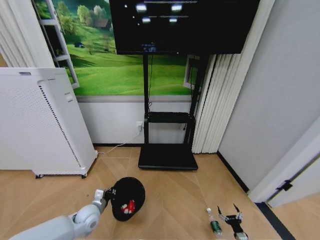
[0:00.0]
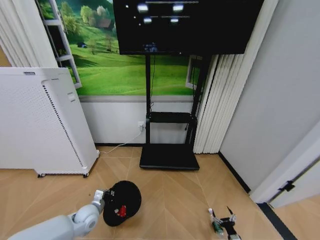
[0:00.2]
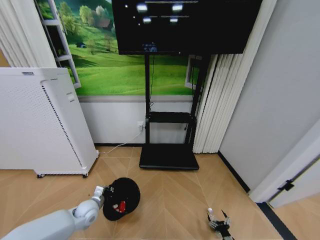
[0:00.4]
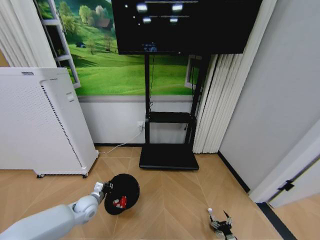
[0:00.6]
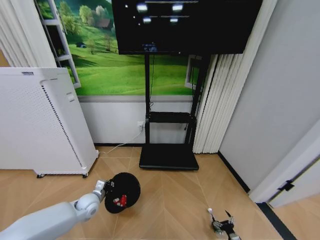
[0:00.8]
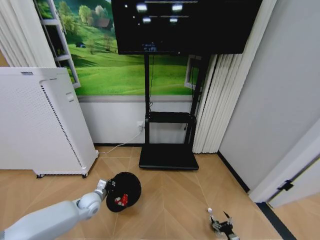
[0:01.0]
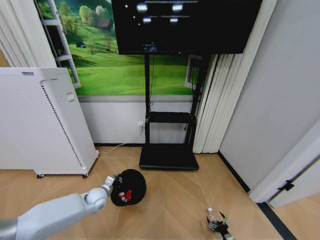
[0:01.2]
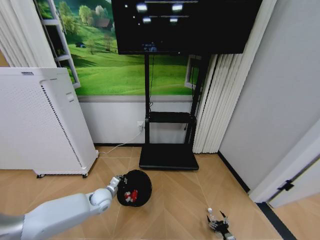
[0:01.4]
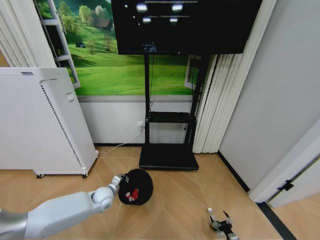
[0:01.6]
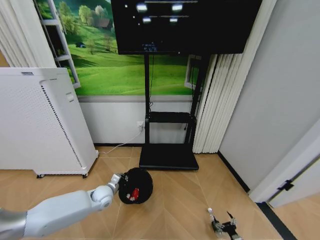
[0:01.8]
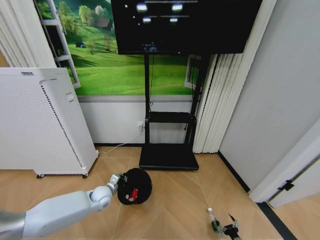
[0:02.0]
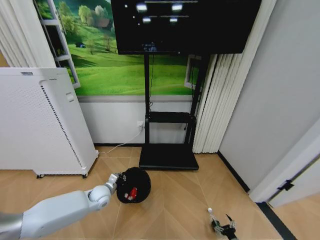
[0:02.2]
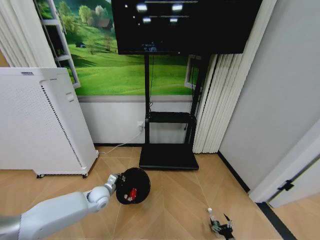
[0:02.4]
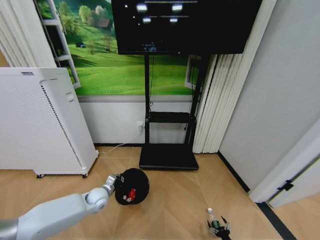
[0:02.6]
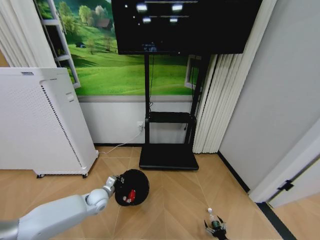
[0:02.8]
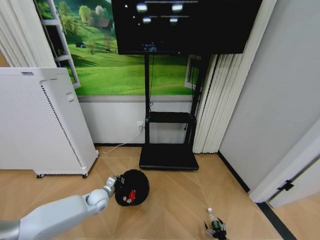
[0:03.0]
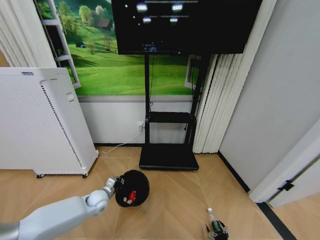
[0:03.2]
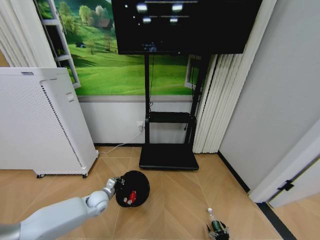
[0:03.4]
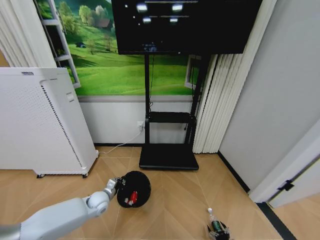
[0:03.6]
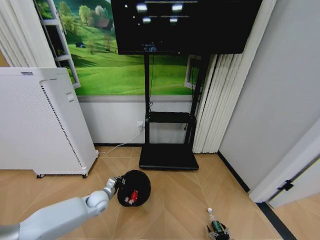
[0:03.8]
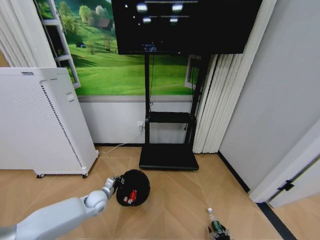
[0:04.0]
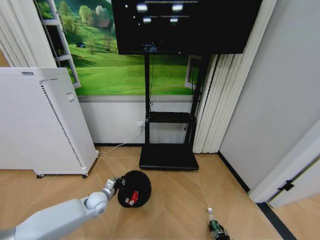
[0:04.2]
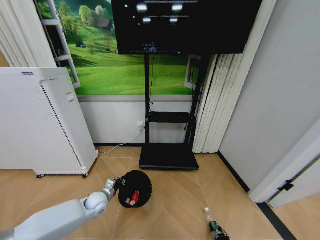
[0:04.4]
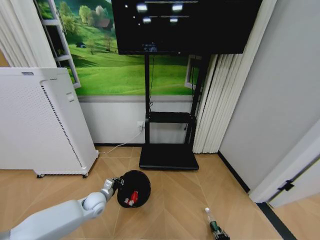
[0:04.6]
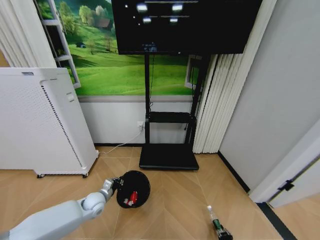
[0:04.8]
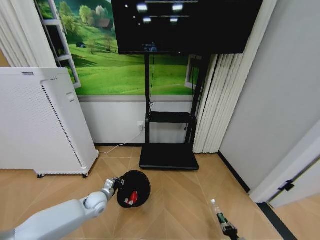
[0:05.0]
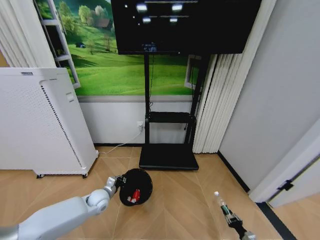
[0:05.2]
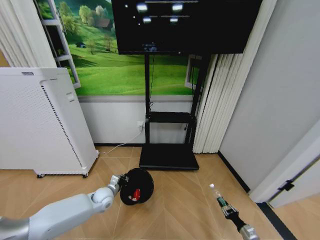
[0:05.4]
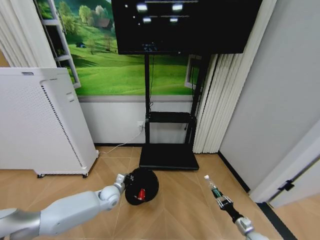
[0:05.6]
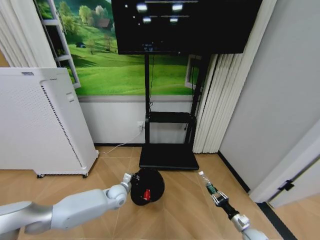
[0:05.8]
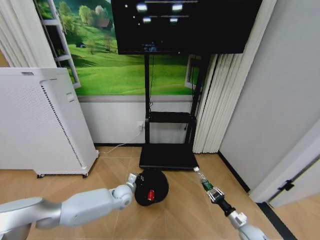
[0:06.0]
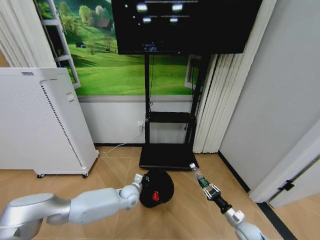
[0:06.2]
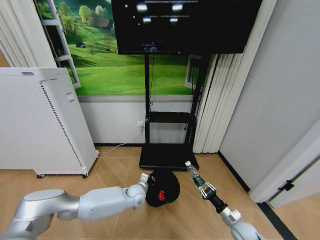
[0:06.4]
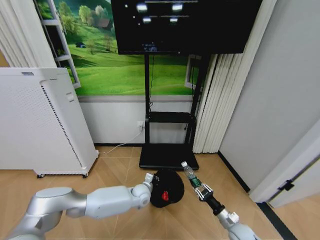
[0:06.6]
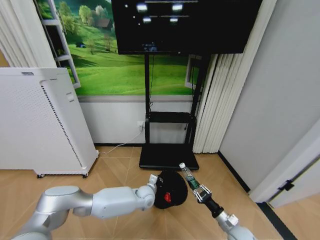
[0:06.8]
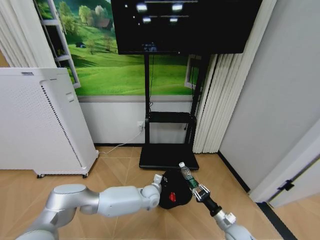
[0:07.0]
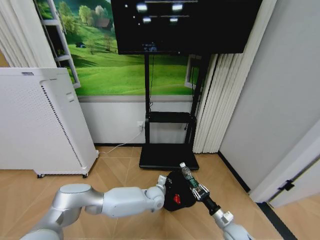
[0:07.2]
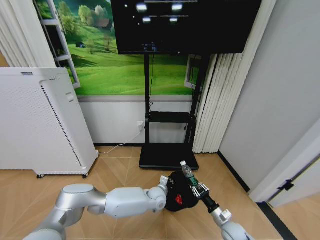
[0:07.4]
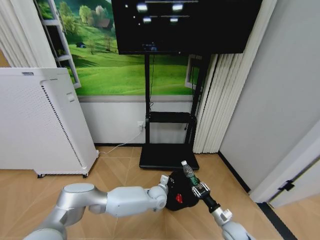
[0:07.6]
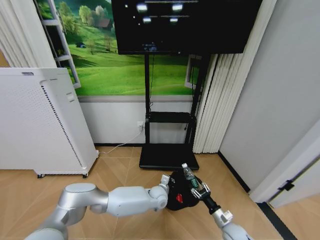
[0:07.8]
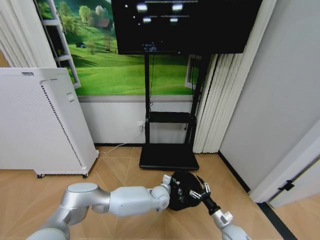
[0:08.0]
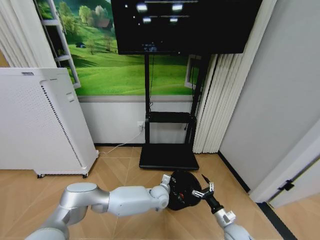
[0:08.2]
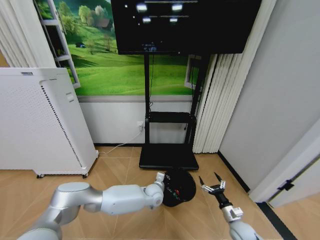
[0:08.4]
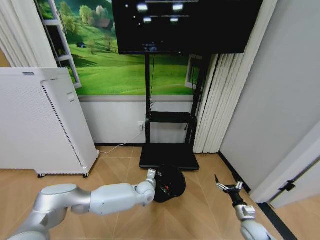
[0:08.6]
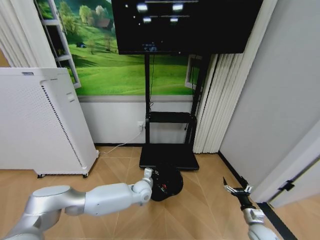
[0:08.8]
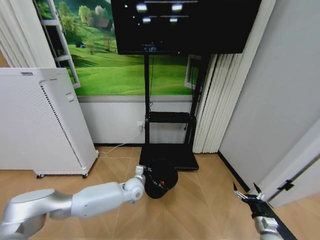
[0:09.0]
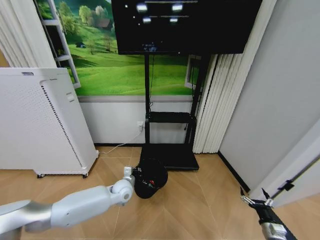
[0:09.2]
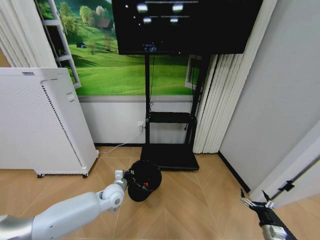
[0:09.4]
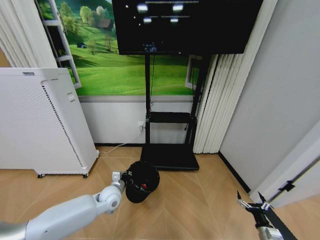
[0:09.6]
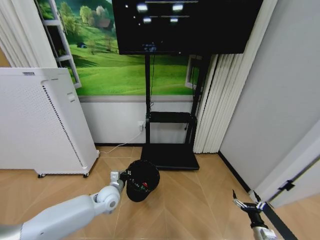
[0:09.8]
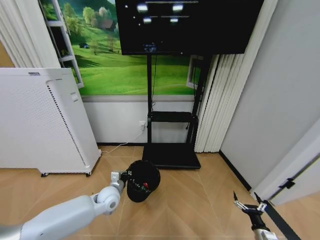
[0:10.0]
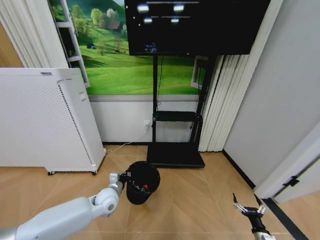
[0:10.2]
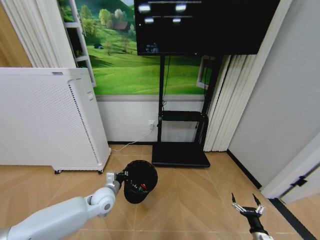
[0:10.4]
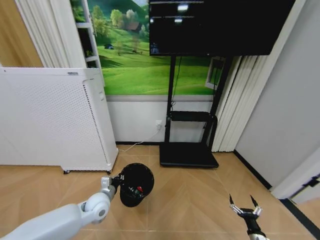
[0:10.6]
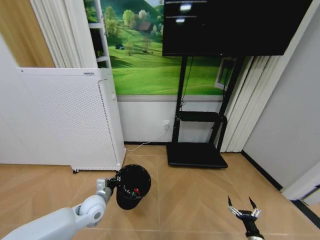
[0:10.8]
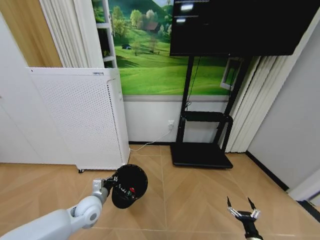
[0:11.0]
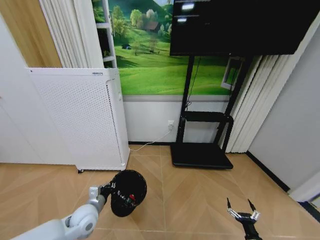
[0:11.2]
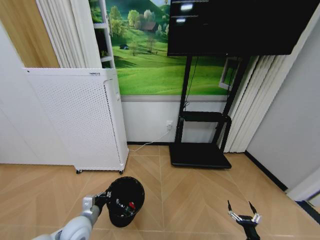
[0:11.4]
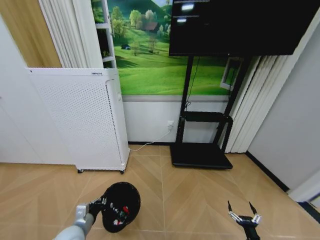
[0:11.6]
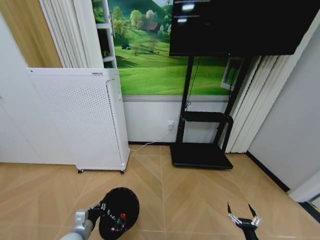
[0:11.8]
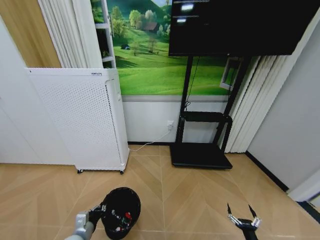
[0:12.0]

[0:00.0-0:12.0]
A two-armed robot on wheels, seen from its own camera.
Task of the whole recording: Pick up the trash bin and place the garbage on the floor into it.
0:00.0 to 0:01.6: The left gripper is displaced forward by roughly 5 cm.
0:01.6 to 0:03.0: There are only small adjustments of the grippers.
0:03.0 to 0:04.4: The right gripper closes up.
0:04.4 to 0:06.0: The left gripper heads to the right, covering some 10 cm; the right gripper travels upward and forward by about 20 cm.
0:06.0 to 0:07.6: The right gripper moves to the left, some 10 cm, while the left gripper goes approximately 20 cm to the right.
0:07.6 to 0:09.0: The left gripper shifts some 10 cm to the left, while the right gripper is displaced to the right by some 15 cm, and opens.
0:09.0 to 0:10.4: The right gripper ends up some 5 cm from where it was. Meanwhile the left gripper shifts some 15 cm to the left and backward.
0:10.4 to 0:12.0: The left gripper heads backward, to the left and downward, covering some 20 cm, while the right gripper shifts by some 5 cm.

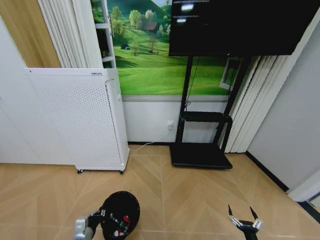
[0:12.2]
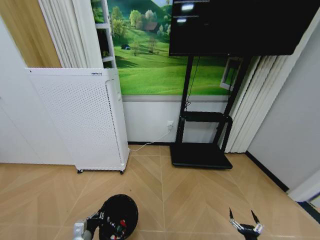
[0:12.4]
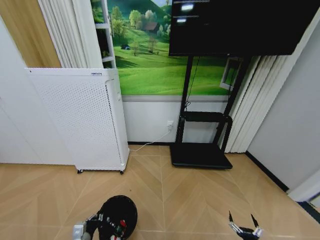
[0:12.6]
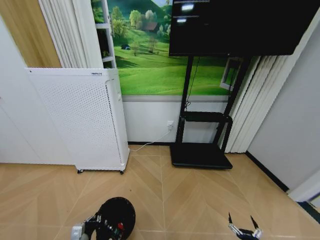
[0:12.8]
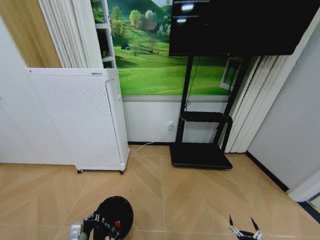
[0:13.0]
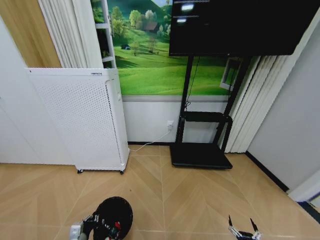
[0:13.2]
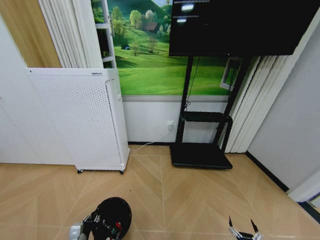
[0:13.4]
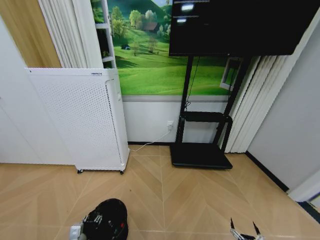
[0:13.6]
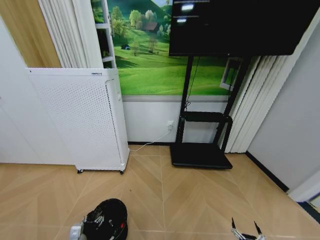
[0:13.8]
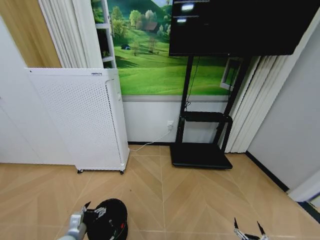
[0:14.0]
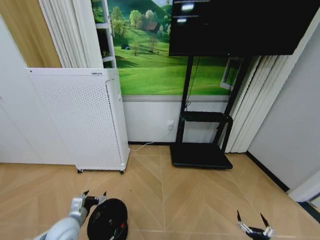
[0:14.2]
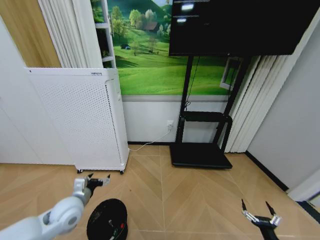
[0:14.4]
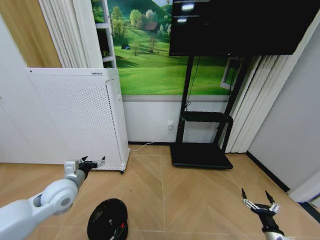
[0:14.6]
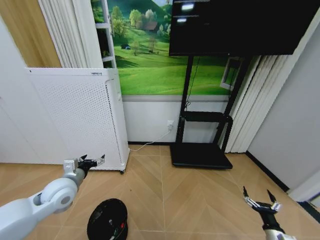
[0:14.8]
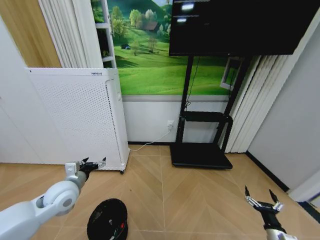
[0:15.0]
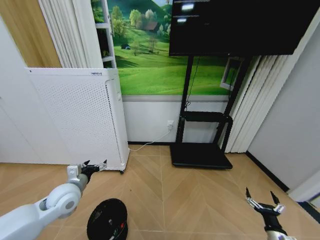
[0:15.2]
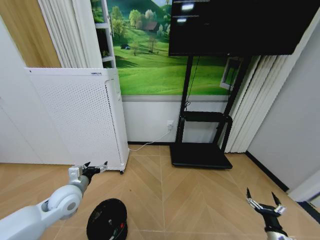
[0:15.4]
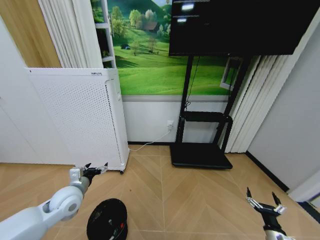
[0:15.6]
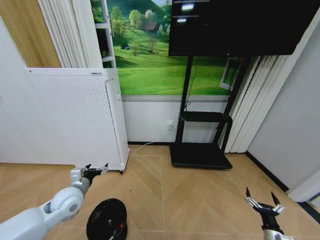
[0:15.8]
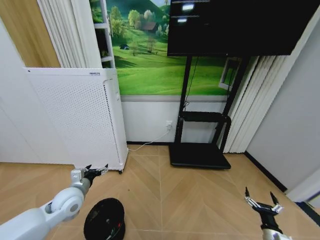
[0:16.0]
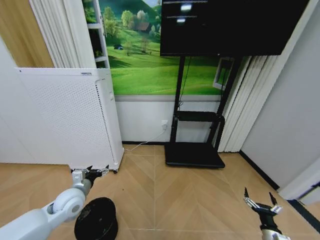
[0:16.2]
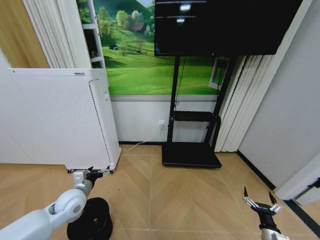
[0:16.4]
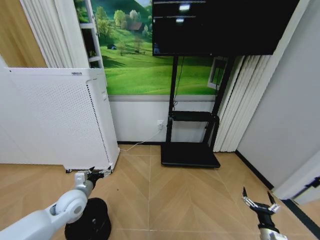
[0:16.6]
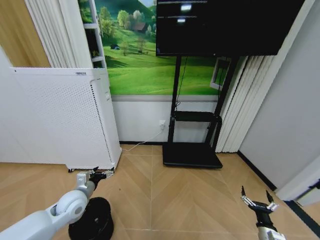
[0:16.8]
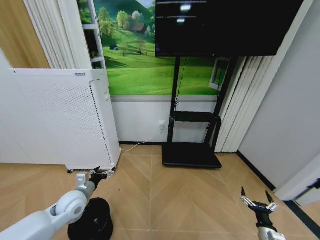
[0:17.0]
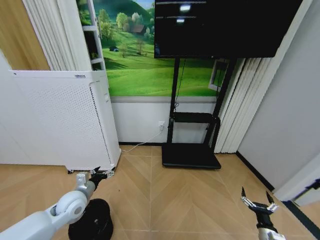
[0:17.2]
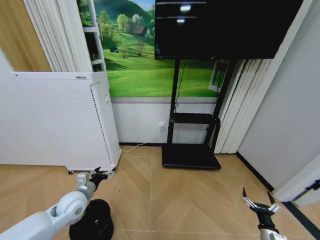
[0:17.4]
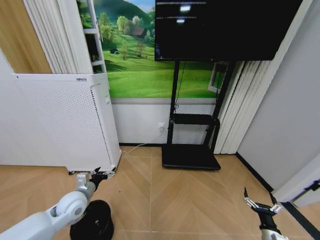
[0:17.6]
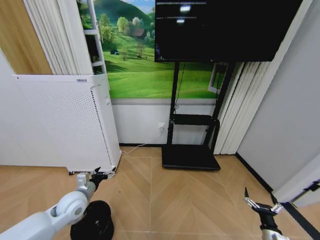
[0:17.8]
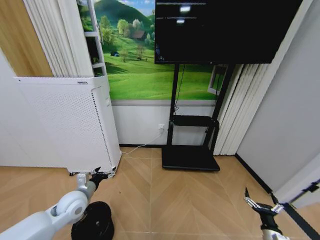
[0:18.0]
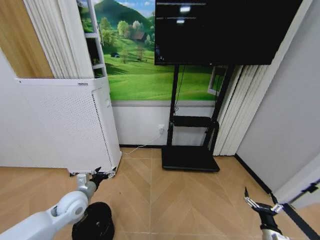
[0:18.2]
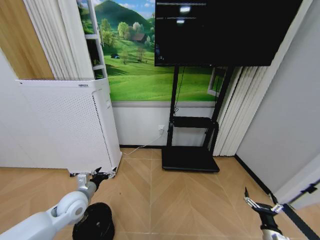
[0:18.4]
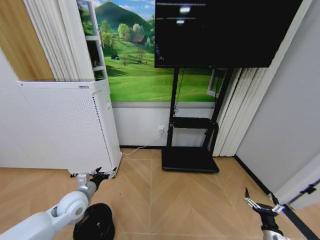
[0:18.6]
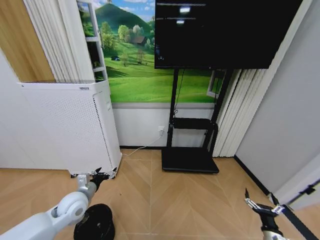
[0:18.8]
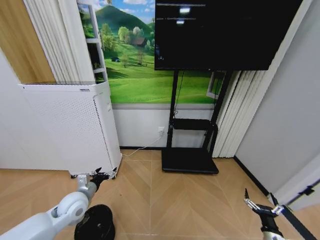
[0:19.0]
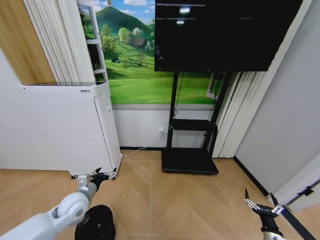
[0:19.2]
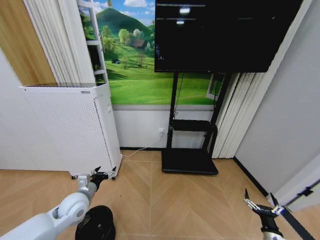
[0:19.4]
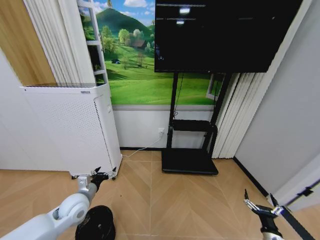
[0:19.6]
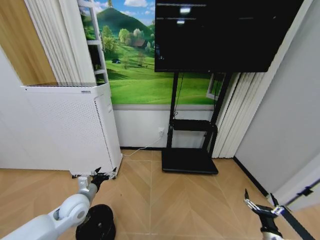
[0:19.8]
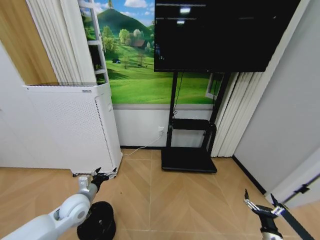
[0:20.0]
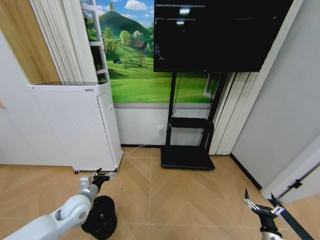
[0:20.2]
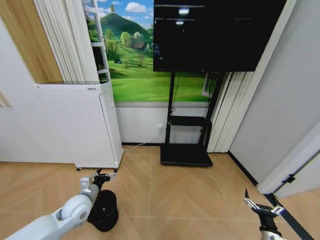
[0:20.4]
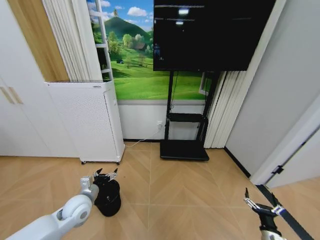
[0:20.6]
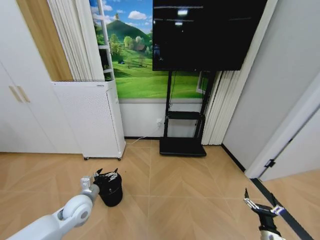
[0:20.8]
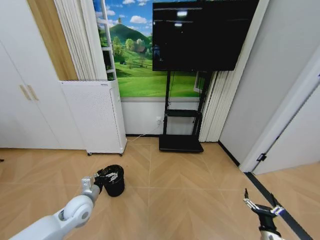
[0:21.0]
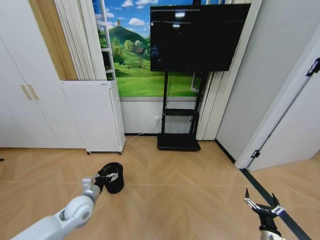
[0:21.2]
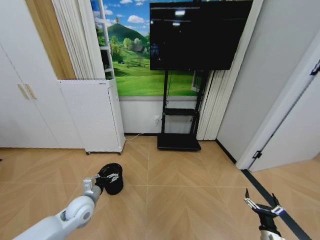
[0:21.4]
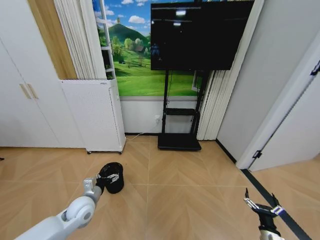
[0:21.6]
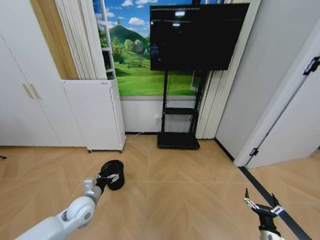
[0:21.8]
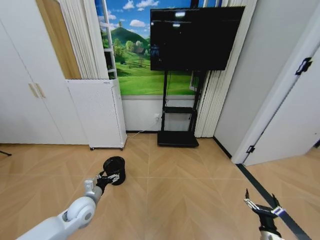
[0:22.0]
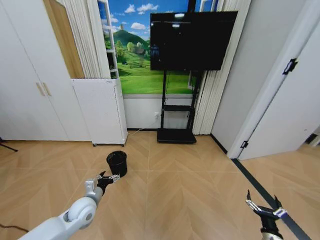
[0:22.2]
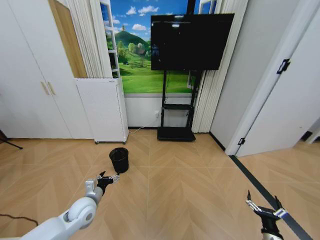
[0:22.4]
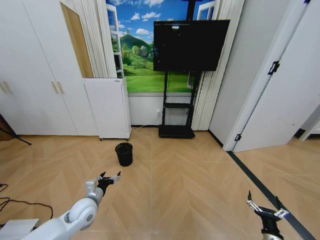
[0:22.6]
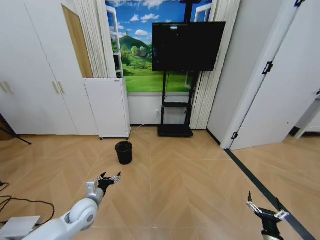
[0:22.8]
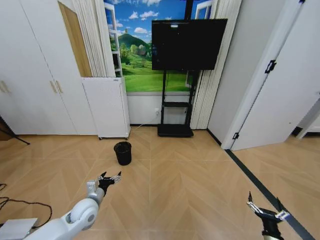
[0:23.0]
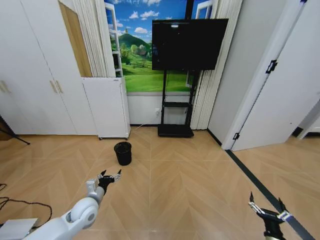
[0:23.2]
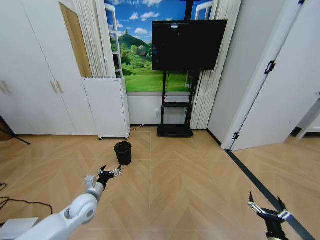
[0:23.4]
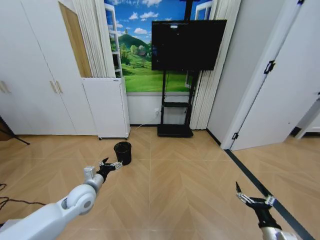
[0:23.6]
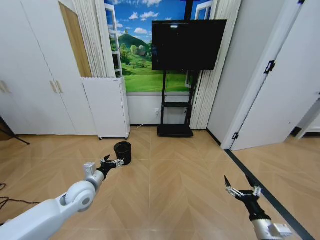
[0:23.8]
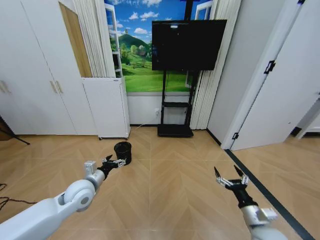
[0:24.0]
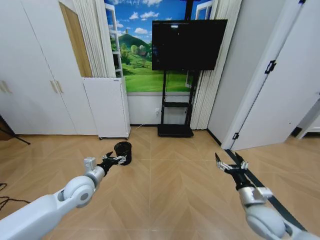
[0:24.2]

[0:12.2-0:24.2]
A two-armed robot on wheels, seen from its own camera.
Task of the whole recording: Pick up the trash bin and place the garbage on the floor into it.
0:12.2 to 0:13.8: The right gripper ends up some 5 cm from where it was; the left gripper opens its fingers.
0:13.8 to 0:15.2: The right gripper is displaced upward, forward and to the right by about 15 cm; the left gripper goes about 25 cm upward and forward.
0:18.2 to 0:19.8: Both grippers stay put.
0:22.6 to 0:24.2: The left gripper heads upward, covering some 10 cm. The right gripper goes approximately 25 cm upward, to the left and forward.
